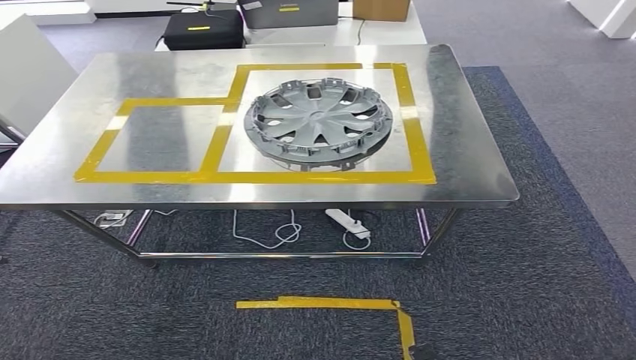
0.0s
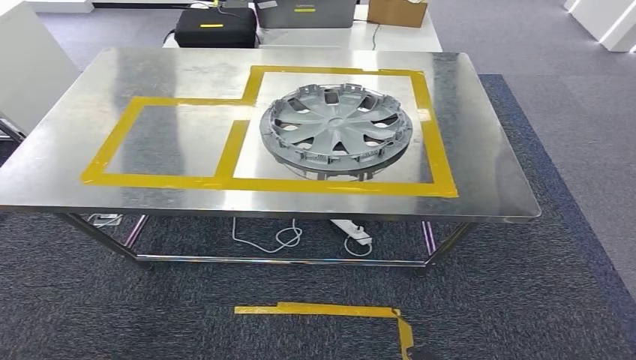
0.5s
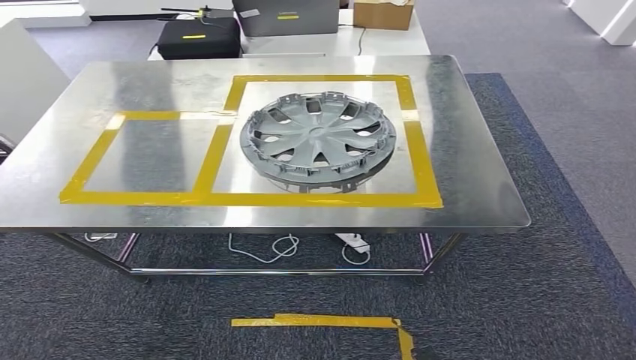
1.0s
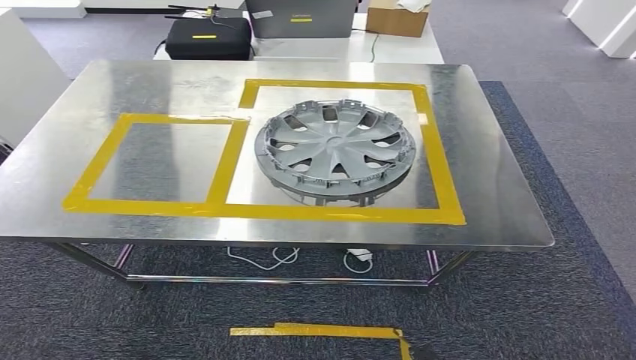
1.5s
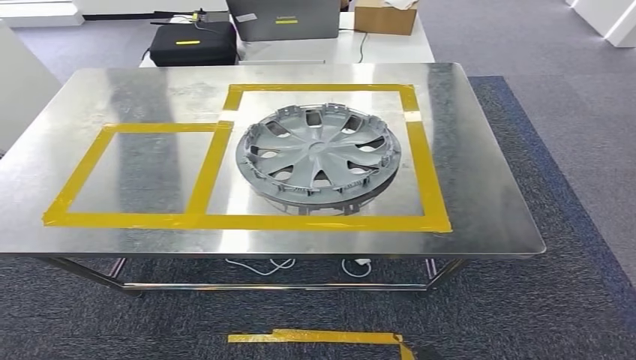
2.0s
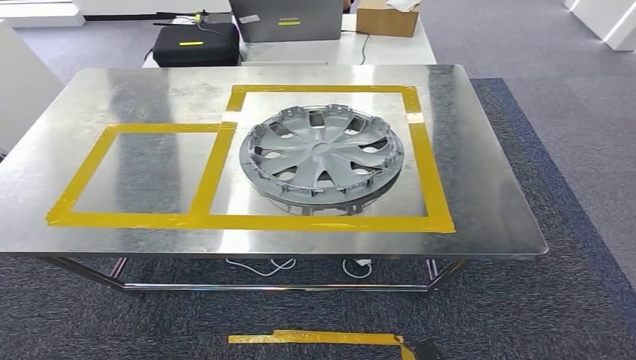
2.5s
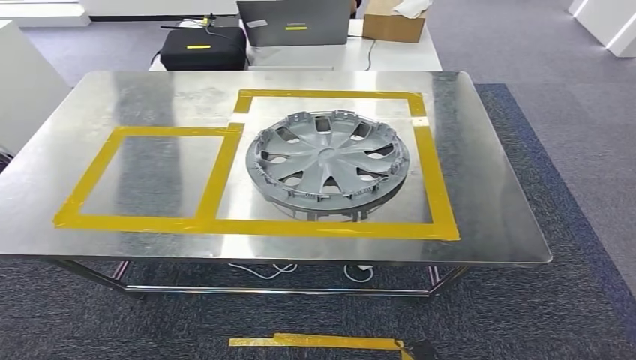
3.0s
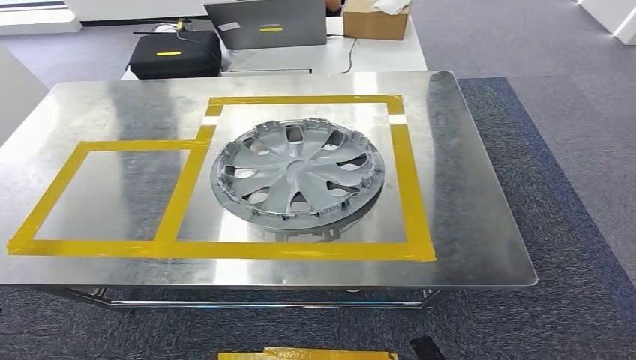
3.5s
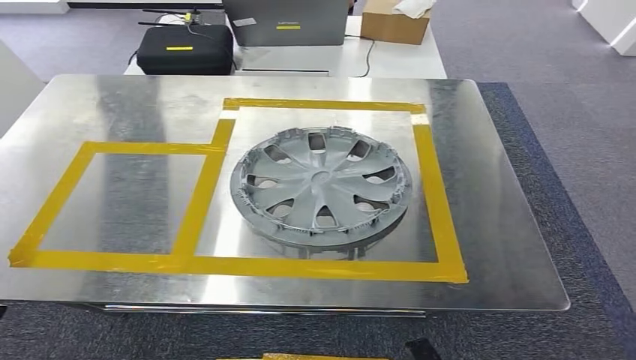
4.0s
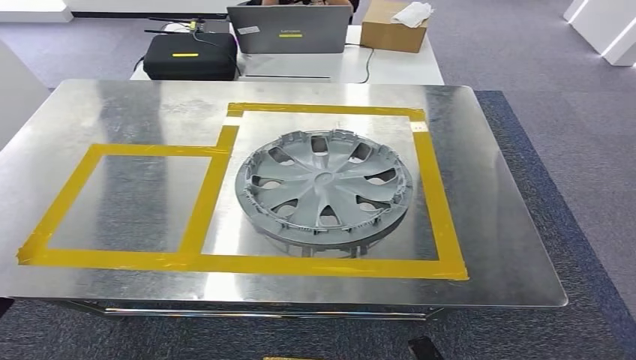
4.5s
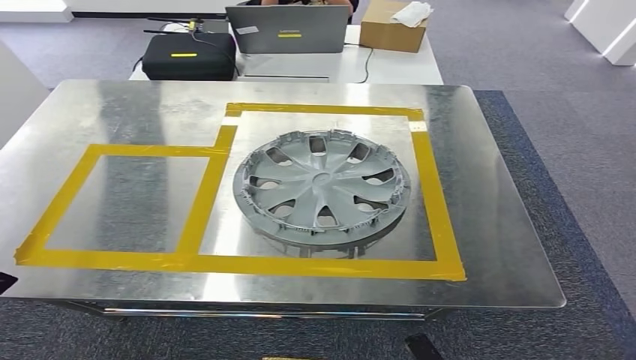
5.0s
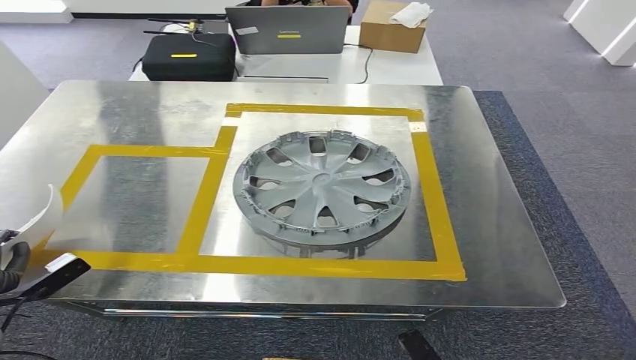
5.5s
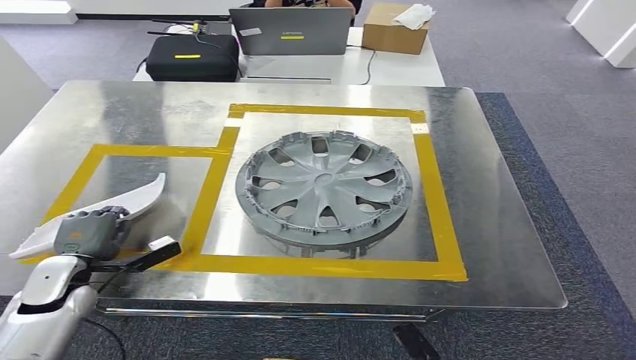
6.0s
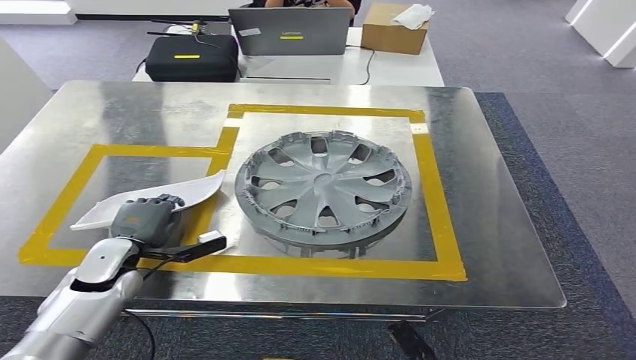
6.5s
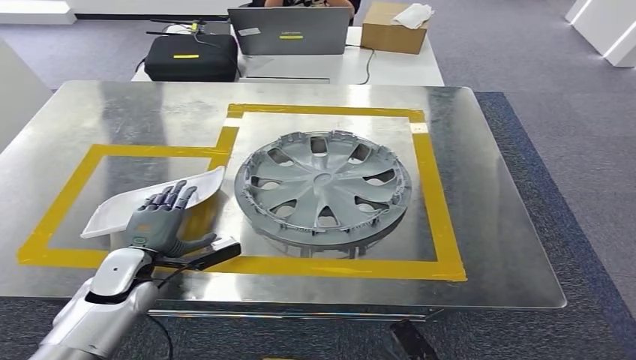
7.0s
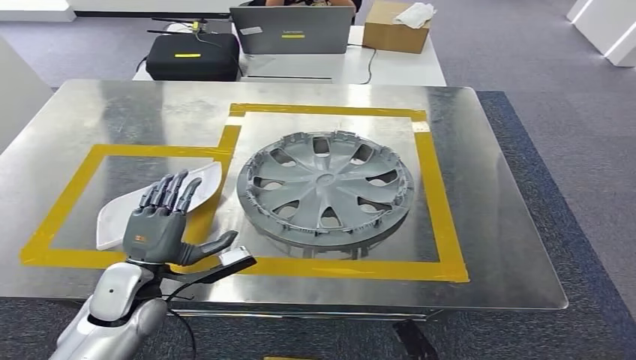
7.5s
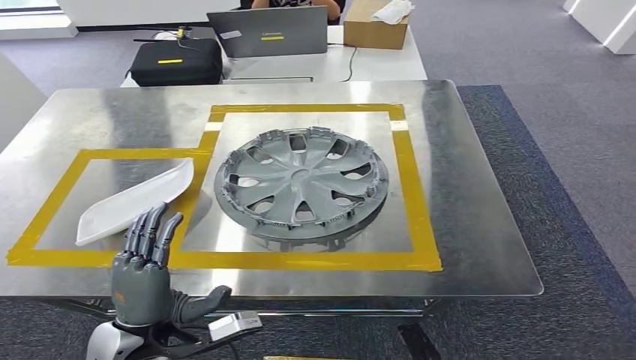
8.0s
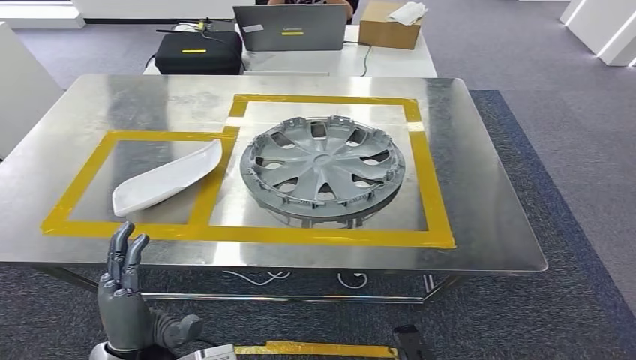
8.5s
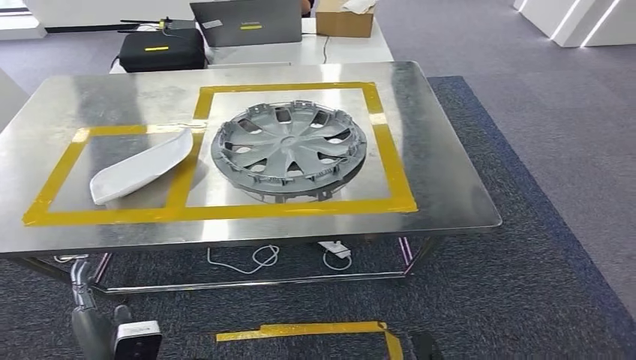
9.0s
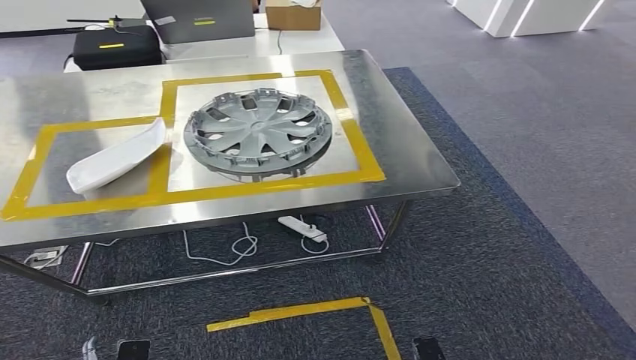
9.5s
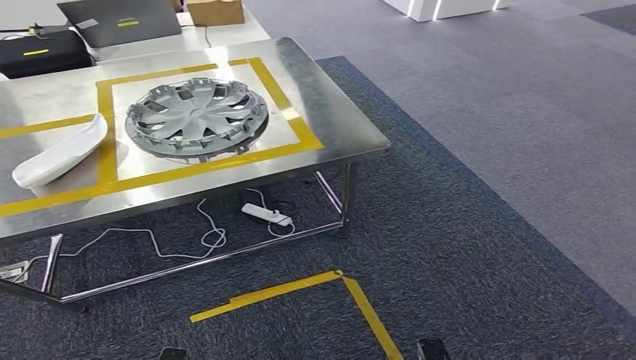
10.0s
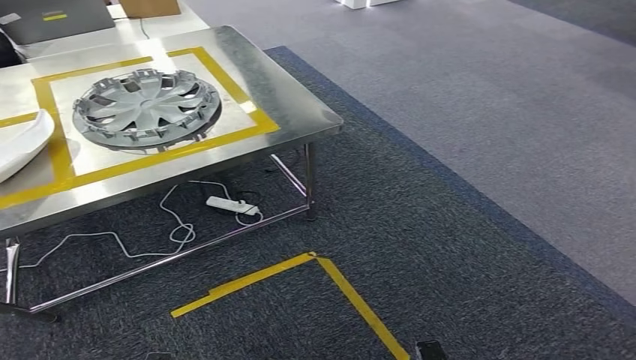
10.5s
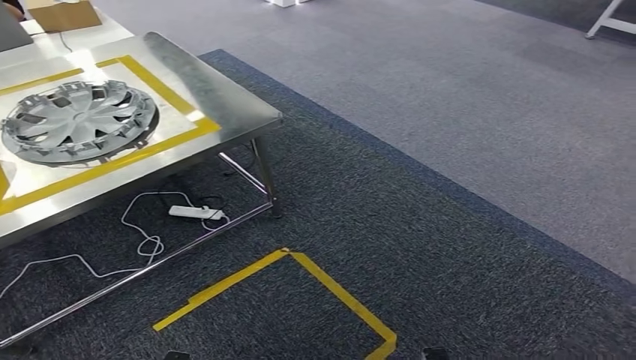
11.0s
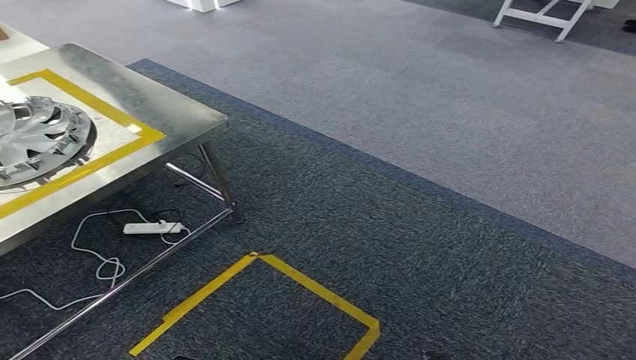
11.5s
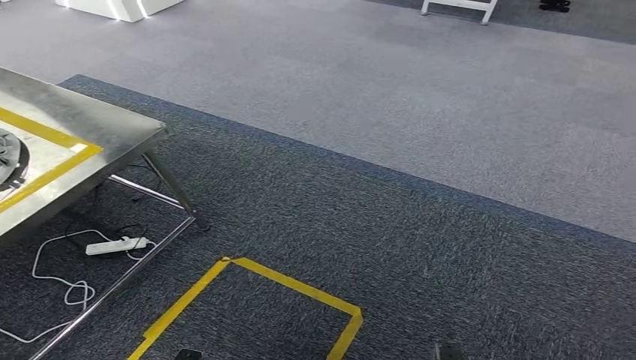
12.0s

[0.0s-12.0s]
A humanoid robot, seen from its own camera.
Step, 0.0s to 8.0s: Insert the small component into the corresponding slot on the workbench.

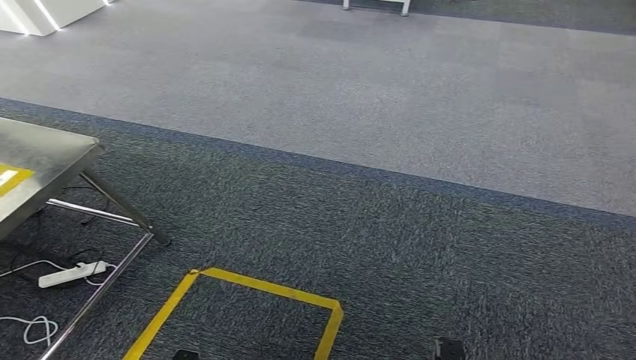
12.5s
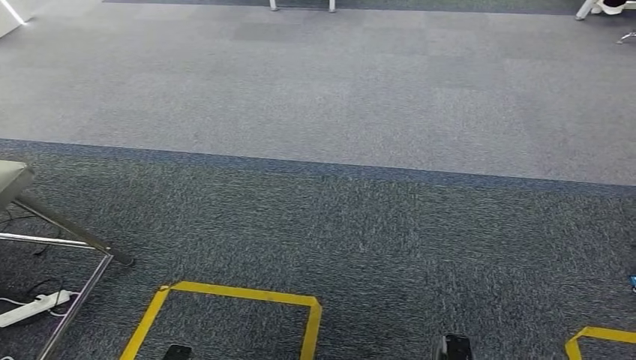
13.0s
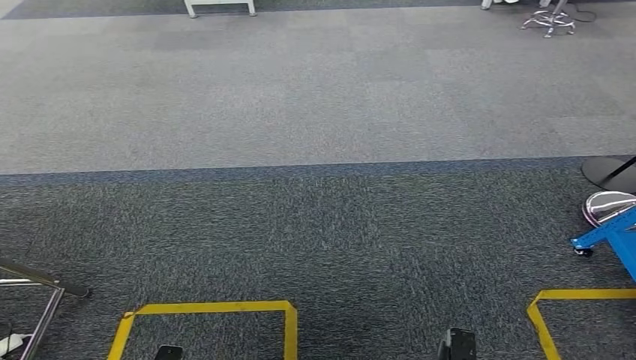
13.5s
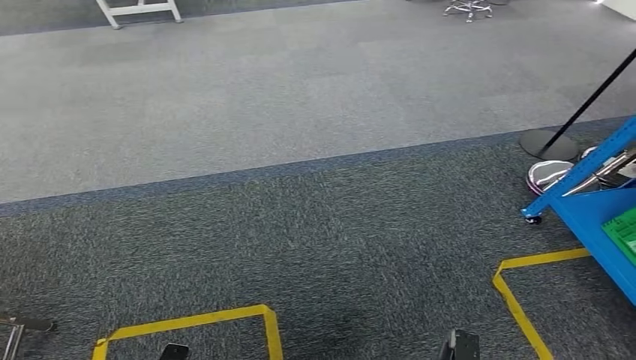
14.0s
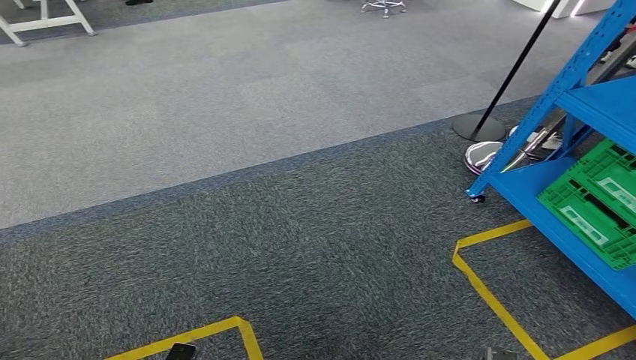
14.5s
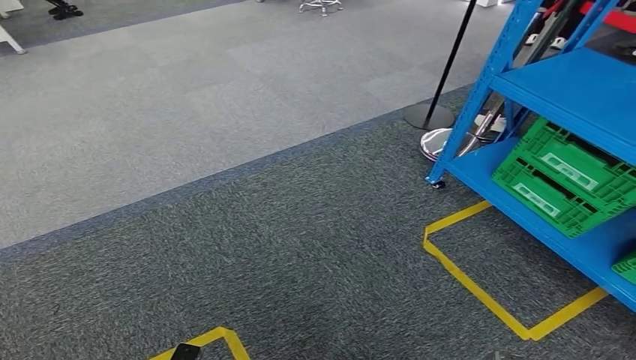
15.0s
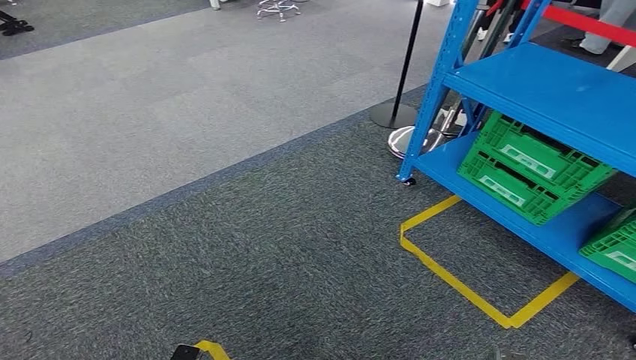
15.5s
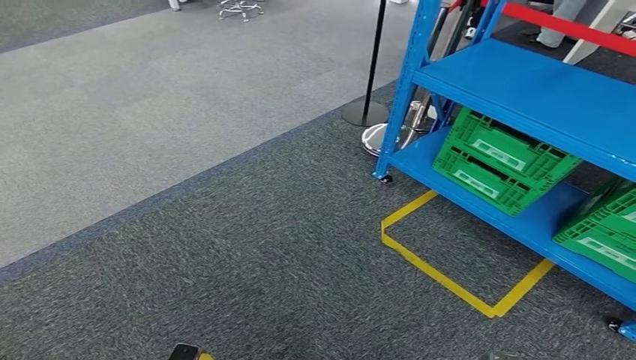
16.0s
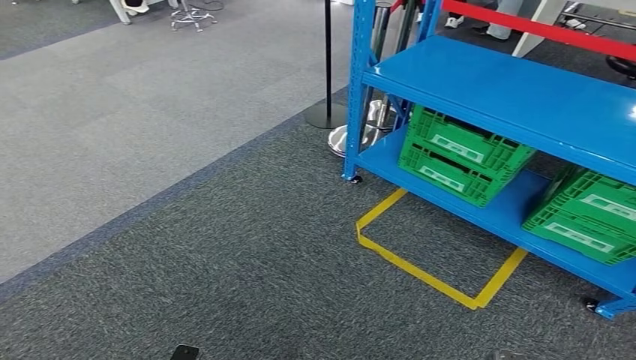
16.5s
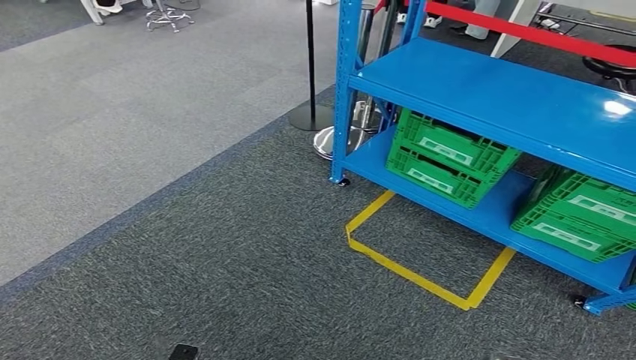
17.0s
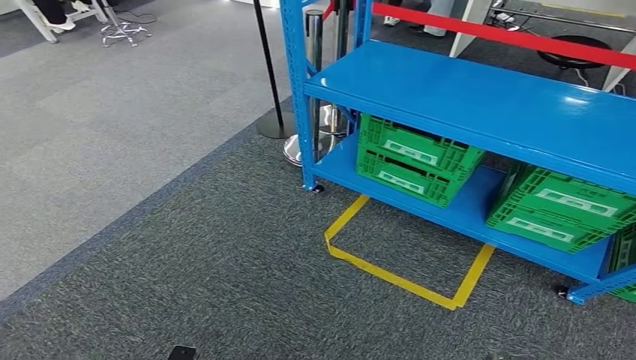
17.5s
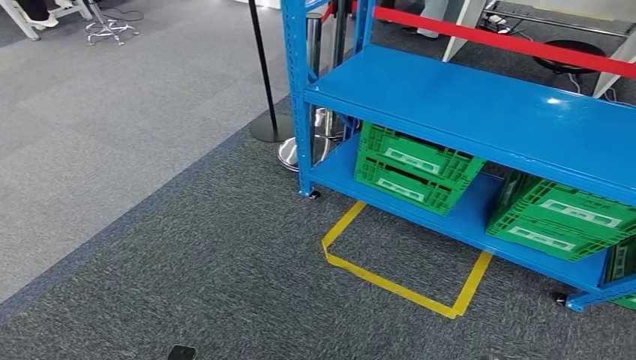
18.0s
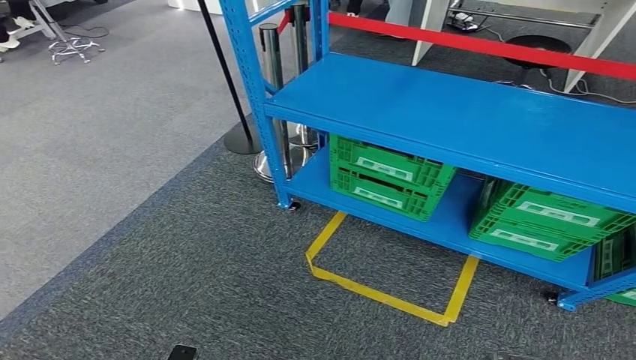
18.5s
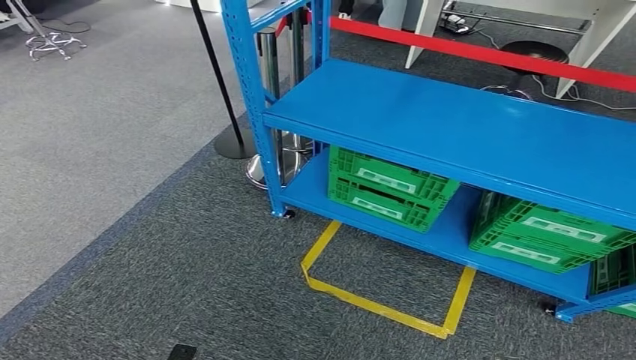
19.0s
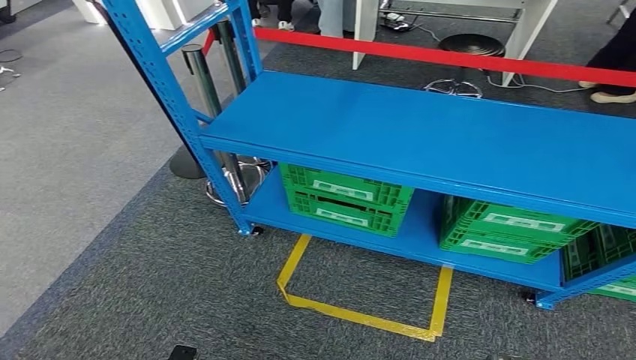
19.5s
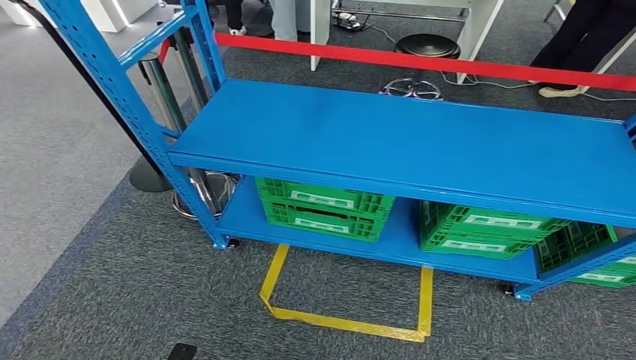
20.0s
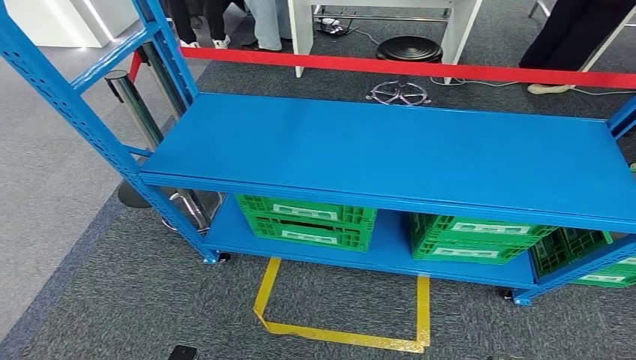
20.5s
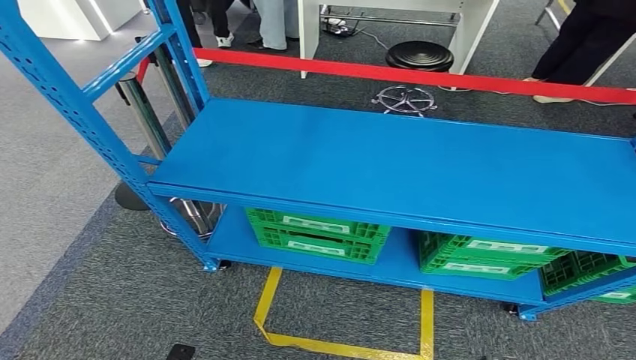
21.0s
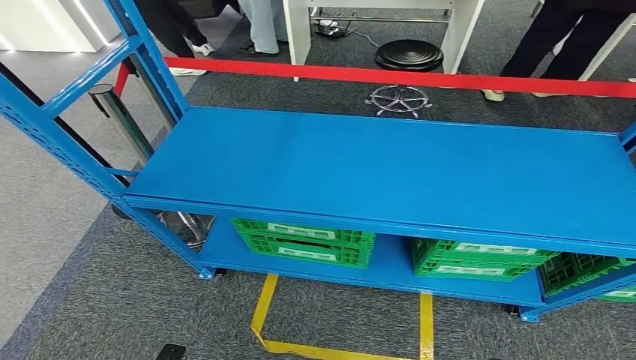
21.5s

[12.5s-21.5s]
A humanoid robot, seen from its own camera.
Step, 12.5s to 21.5s: Return to the initial position at the workbench.
